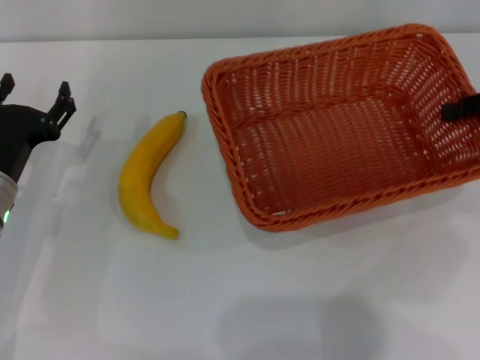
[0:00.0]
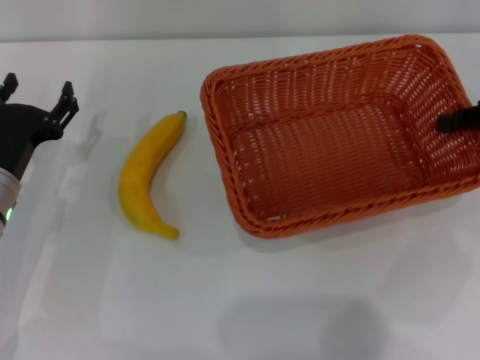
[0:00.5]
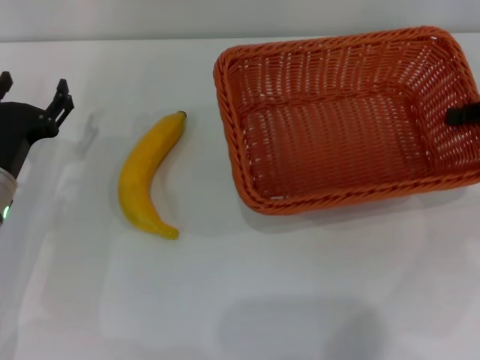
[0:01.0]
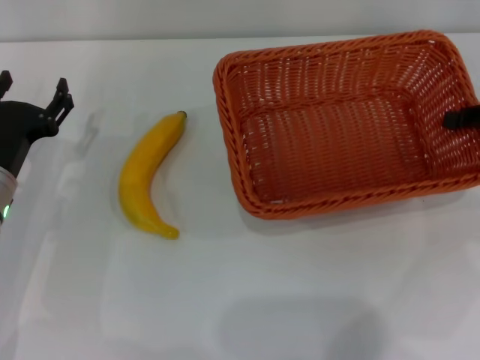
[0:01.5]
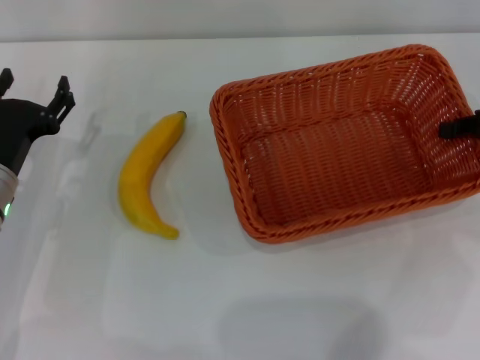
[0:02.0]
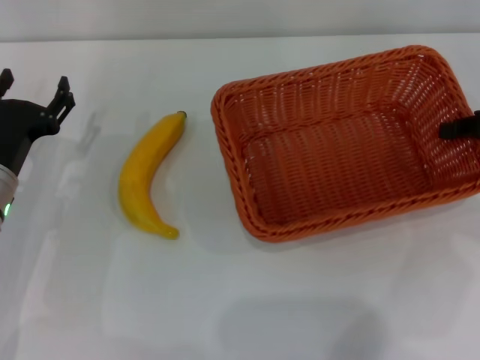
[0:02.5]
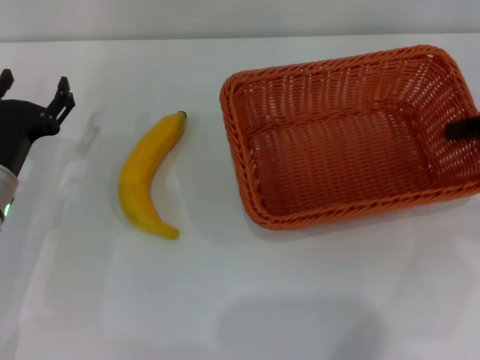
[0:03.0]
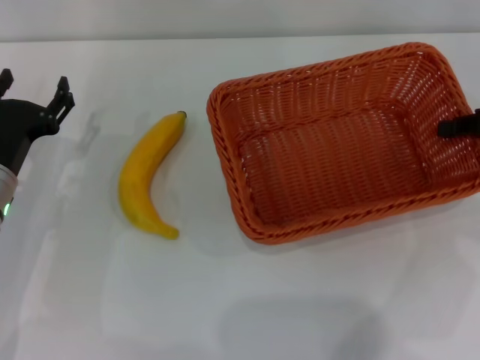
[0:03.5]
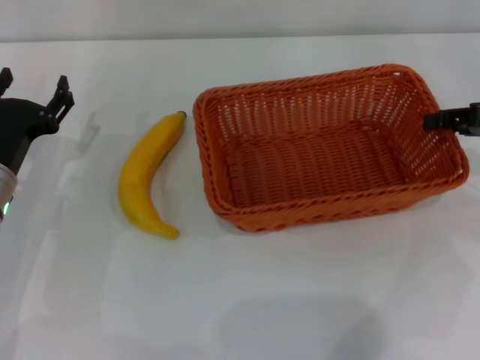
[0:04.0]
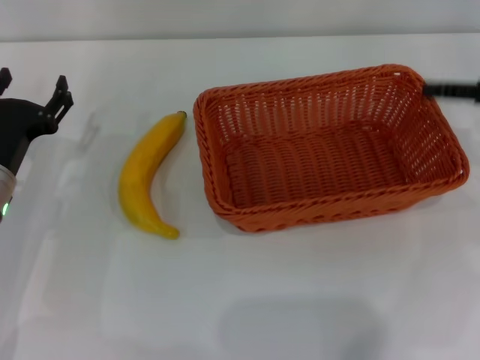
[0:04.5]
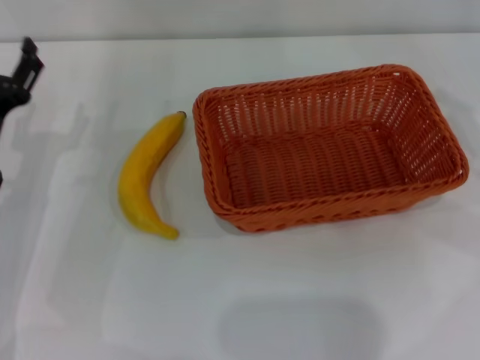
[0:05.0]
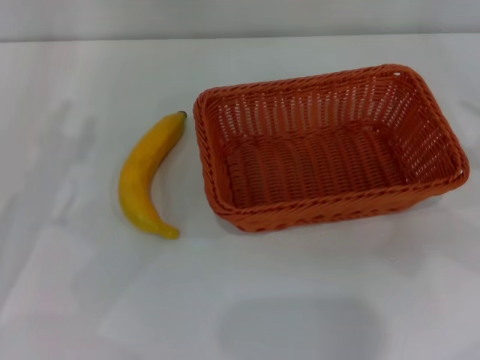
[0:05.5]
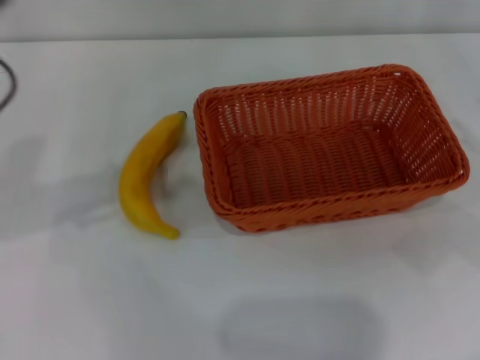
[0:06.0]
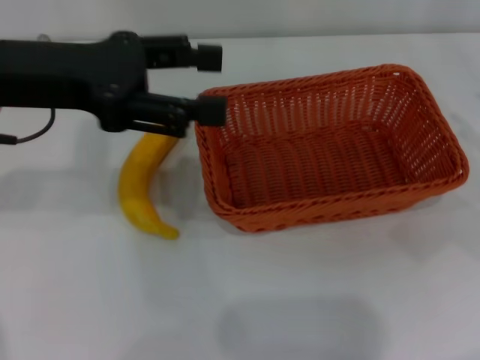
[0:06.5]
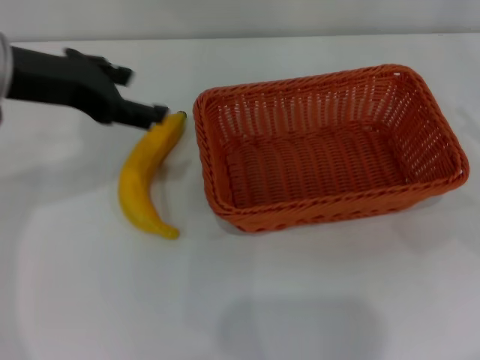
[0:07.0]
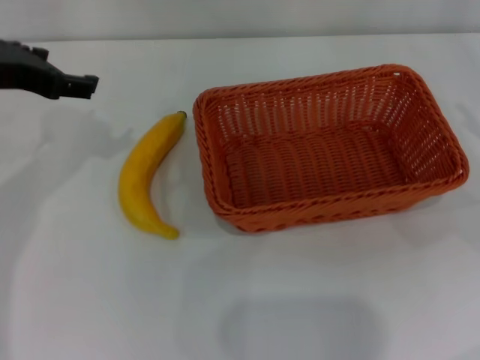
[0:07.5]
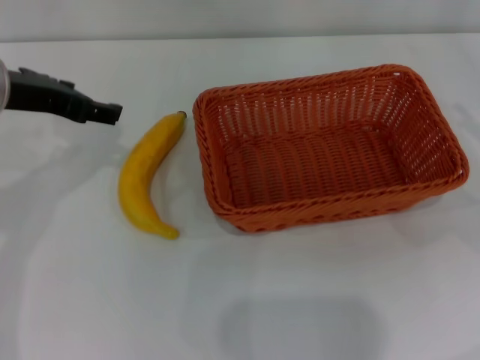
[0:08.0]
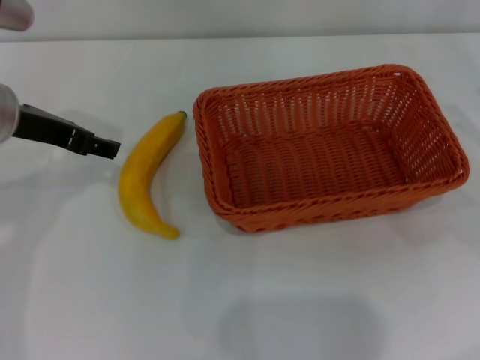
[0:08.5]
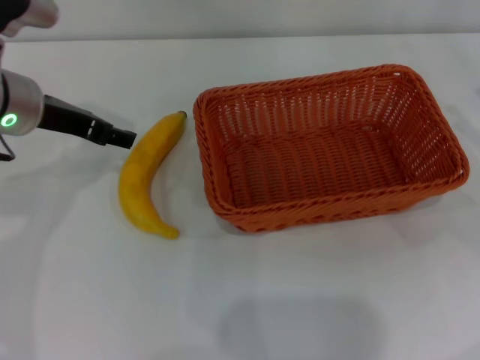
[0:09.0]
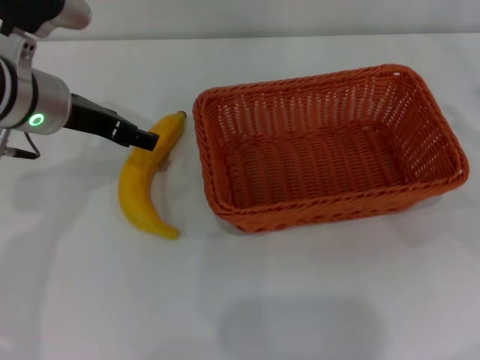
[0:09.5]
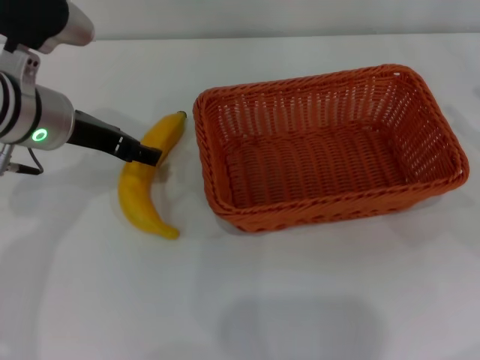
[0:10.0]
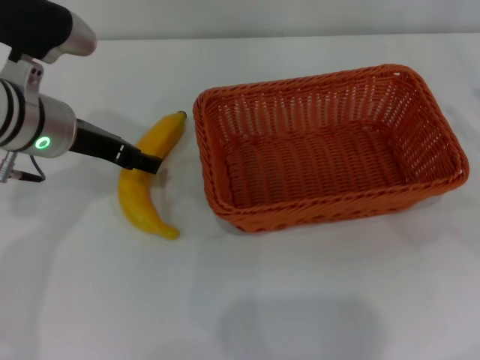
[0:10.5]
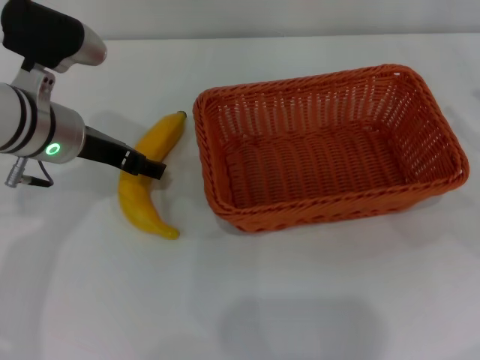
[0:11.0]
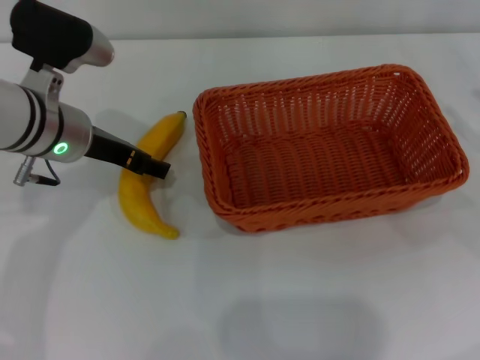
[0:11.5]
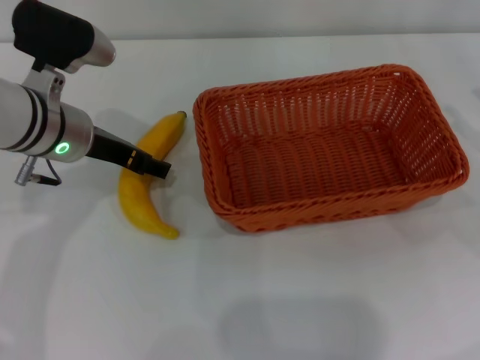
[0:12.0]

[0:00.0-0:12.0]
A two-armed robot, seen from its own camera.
Step, 0:00.0 to 0:04.5: Place the light basket in the center of view with the right gripper.
0:00.0 to 0:02.0: The grippers stay close to where they were, moving slightly.
0:02.0 to 0:04.0: Both grippers stay put.
0:04.0 to 0:06.0: The left gripper moves upward, roughly 15 cm, while the right gripper travels backward by roughly 10 cm, and opens.
0:08.0 to 0:10.0: The left gripper shifts by approximately 5 cm.
0:10.0 to 0:12.0: The grippers make only small movements.

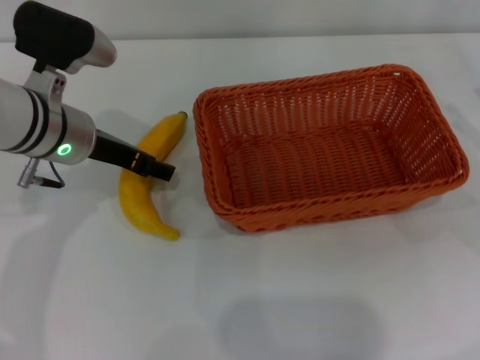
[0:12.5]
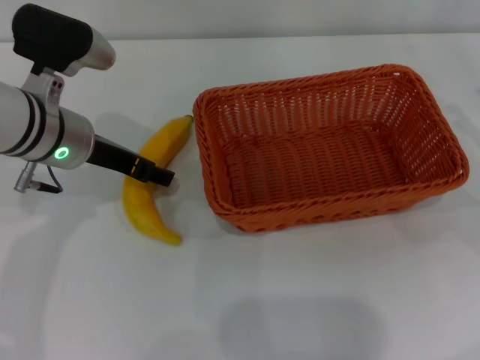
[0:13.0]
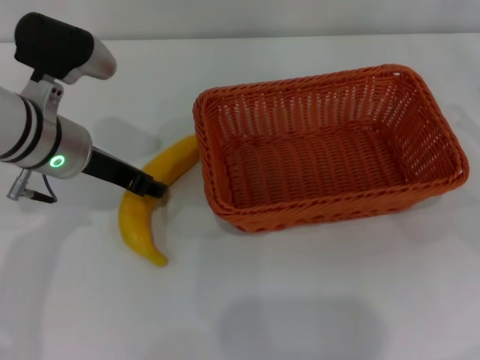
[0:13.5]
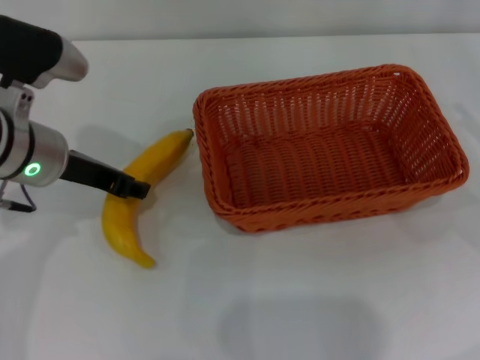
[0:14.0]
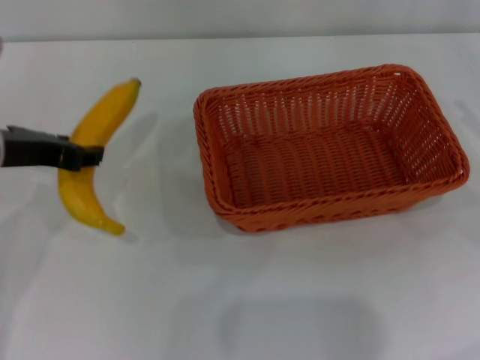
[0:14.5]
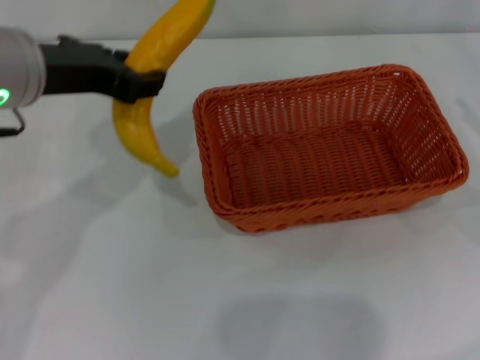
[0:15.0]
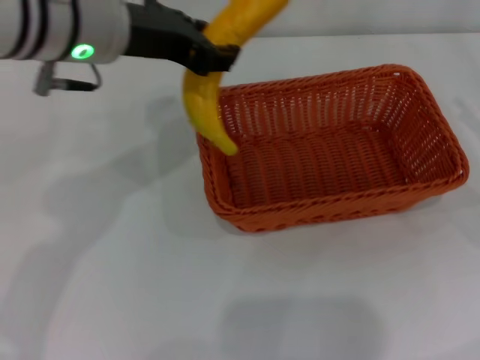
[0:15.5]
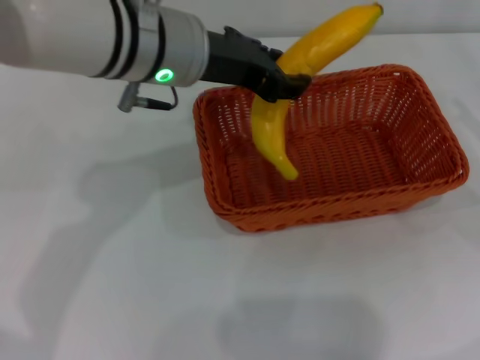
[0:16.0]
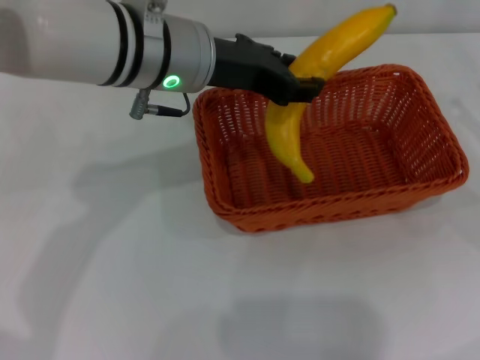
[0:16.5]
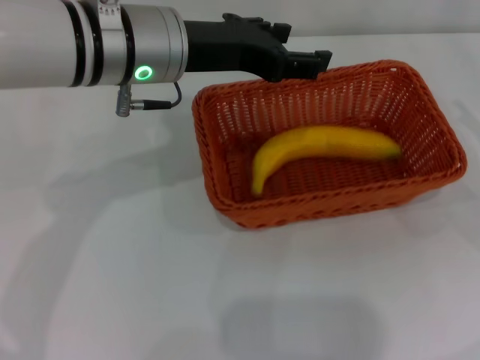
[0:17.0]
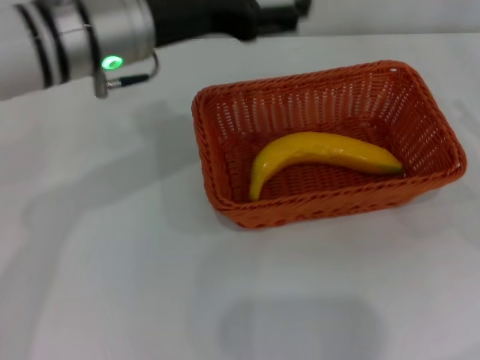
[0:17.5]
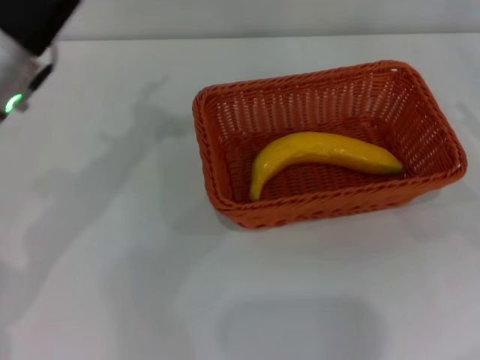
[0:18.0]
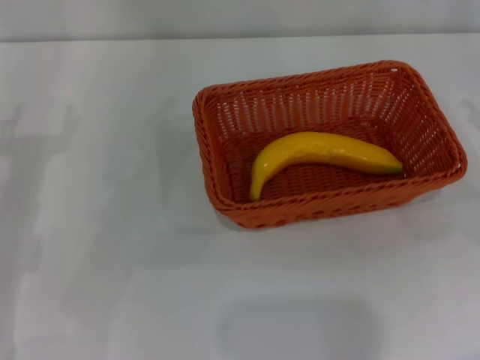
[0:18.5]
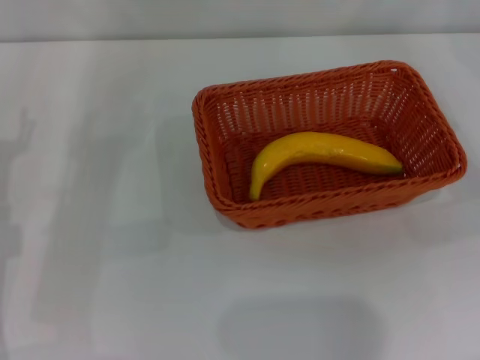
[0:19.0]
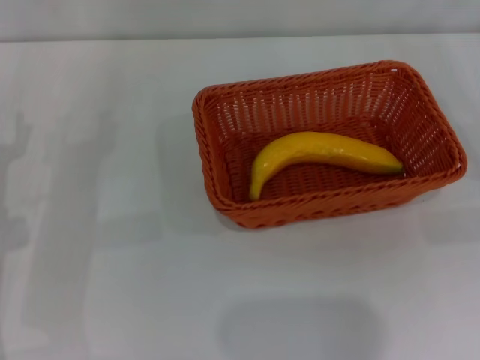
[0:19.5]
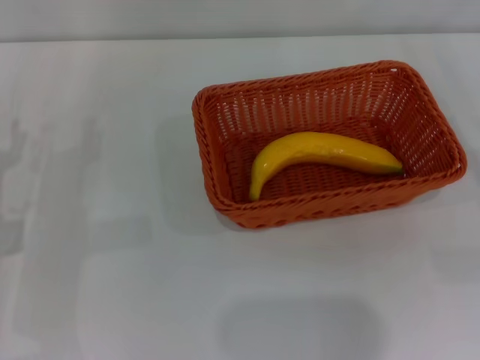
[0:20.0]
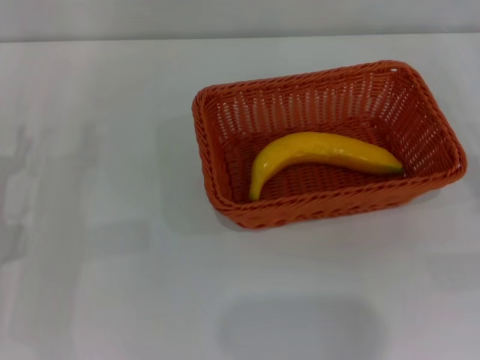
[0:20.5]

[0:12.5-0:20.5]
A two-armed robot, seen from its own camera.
Step, 0:12.5 to 0:14.5: Pick up the banana with the left gripper.
Step, 0:15.0 to 0:17.0: Place the banana into the light basket with the left gripper.
0:12.5 to 0:14.5: The left gripper goes roughly 10 cm backward and to the left, and closes.
0:14.5 to 0:16.5: The left gripper shifts about 15 cm to the right.
0:16.5 to 0:18.5: The left gripper heads to the left, downward and backward, covering roughly 25 cm, and opens.

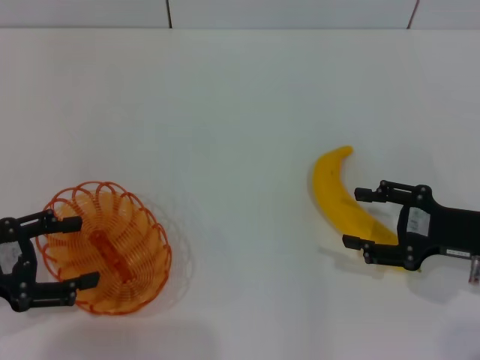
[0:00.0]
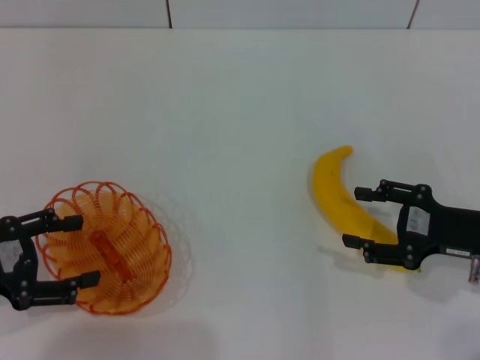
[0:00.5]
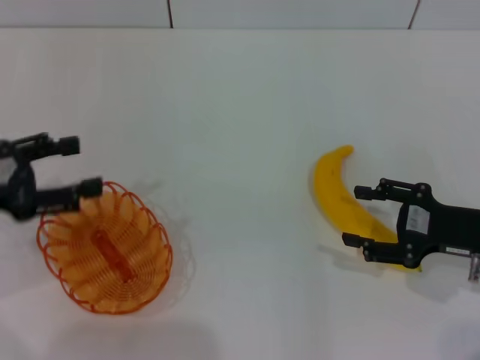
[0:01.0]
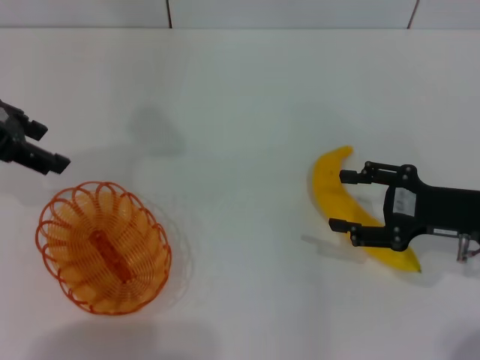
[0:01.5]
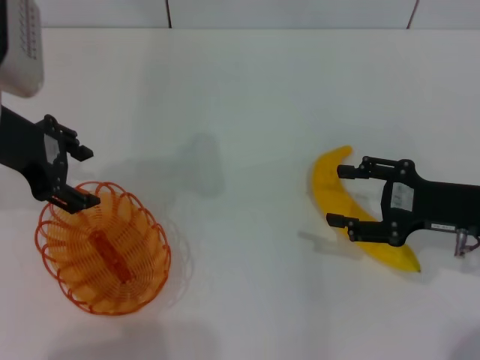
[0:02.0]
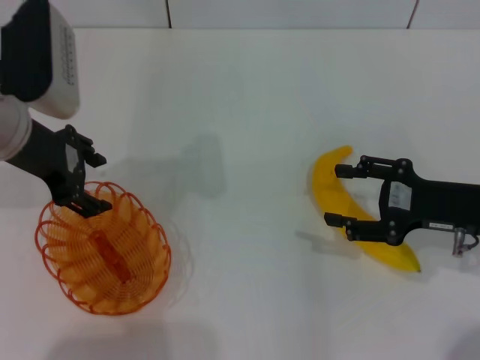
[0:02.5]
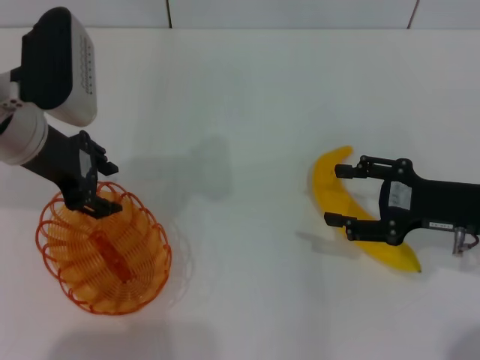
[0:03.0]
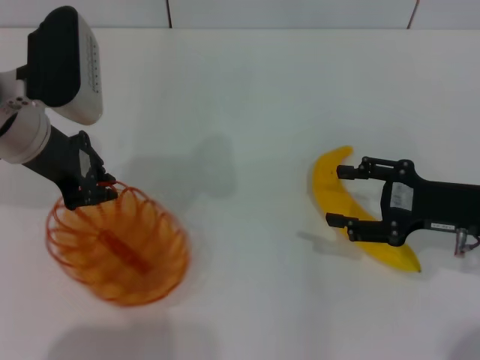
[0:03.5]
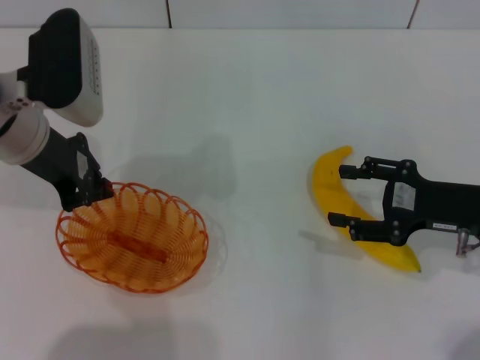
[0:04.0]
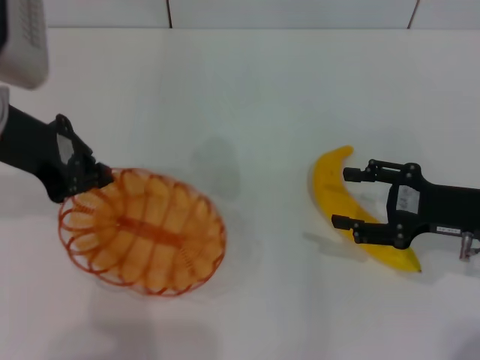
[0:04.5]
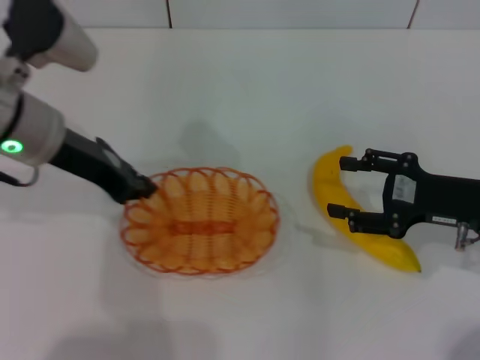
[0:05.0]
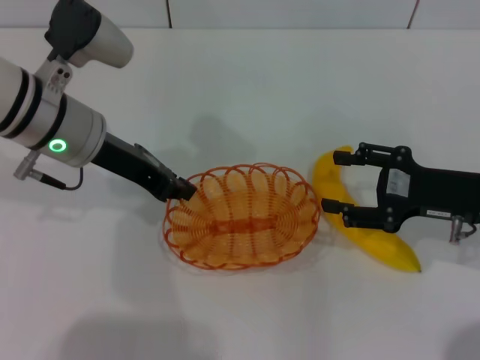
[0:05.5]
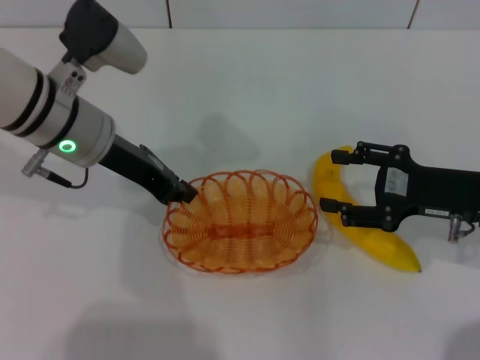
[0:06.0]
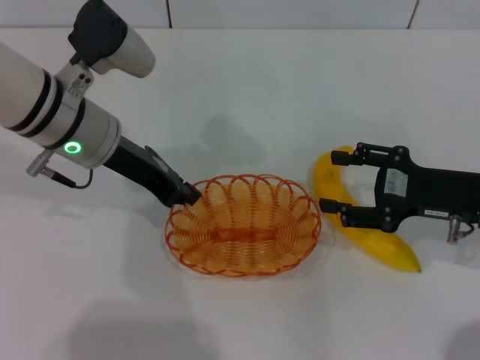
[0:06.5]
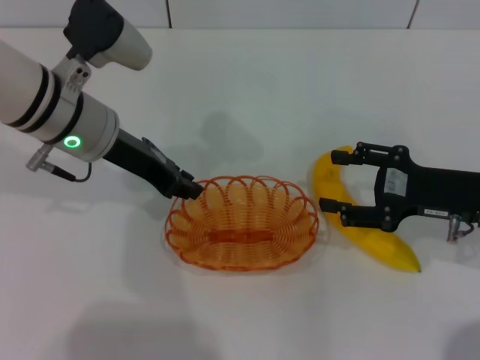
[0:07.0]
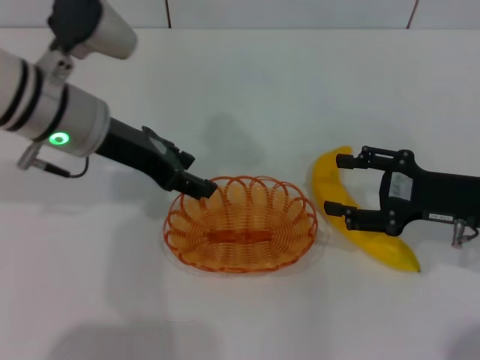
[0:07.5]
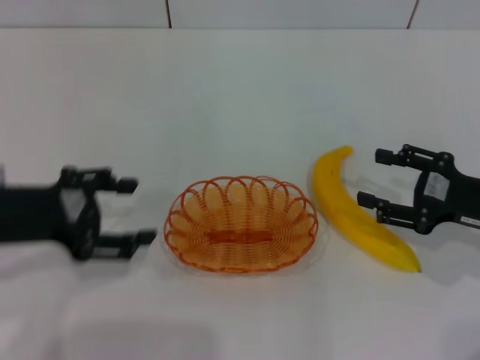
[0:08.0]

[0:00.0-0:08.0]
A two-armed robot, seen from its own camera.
Step, 0:00.0 to 0:04.5: Pick up the basket with the left gripper.
Step, 0:05.0 to 0:07.5: Place the basket in the center of view with the left gripper.
0:00.0 to 0:02.0: The left gripper shifts about 20 cm forward, upward and to the right.
0:02.0 to 0:04.0: The left gripper closes up.
0:06.0 to 0:08.0: The left gripper moves backward and to the left, about 15 cm, and opens.
